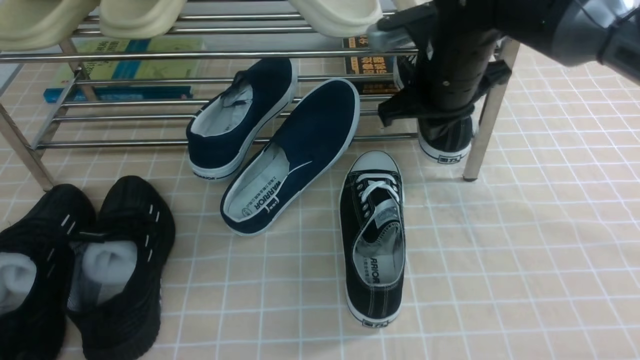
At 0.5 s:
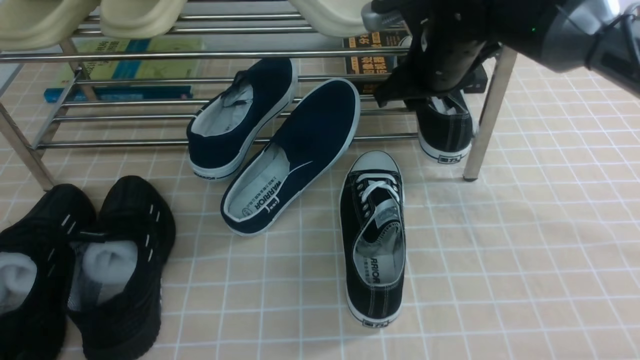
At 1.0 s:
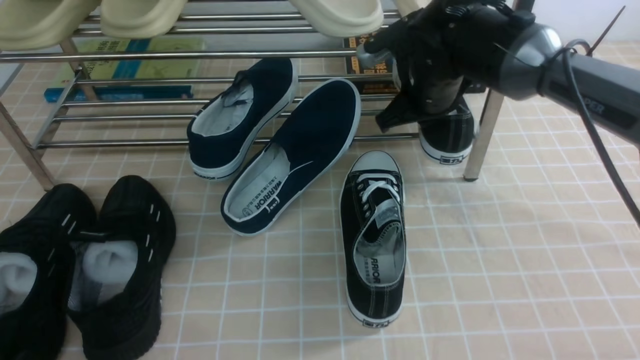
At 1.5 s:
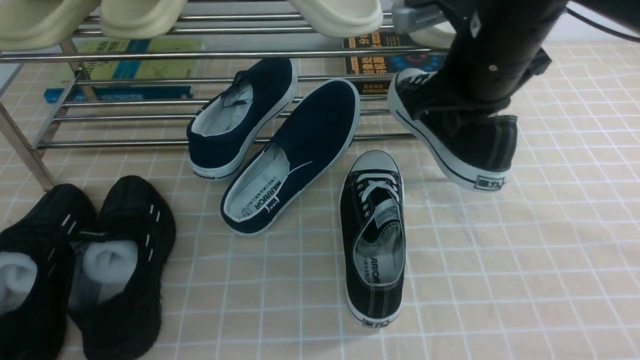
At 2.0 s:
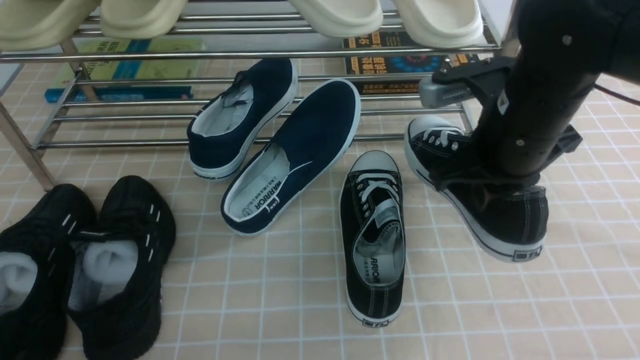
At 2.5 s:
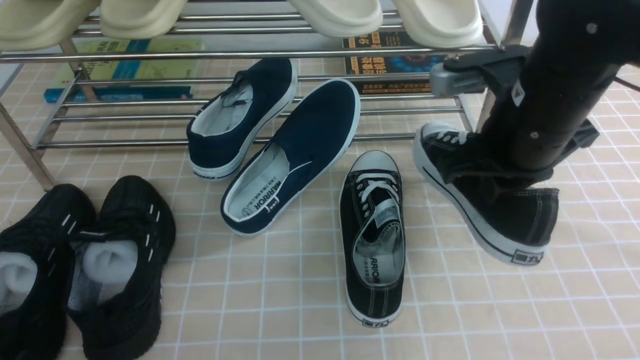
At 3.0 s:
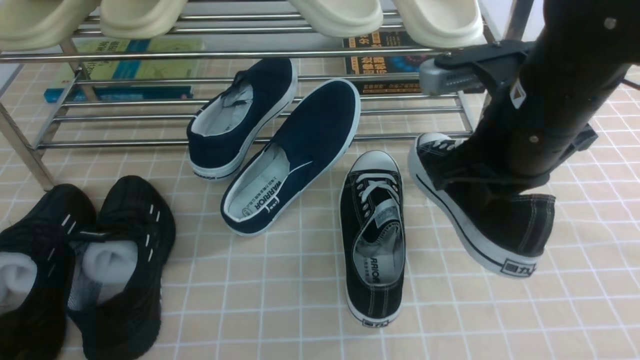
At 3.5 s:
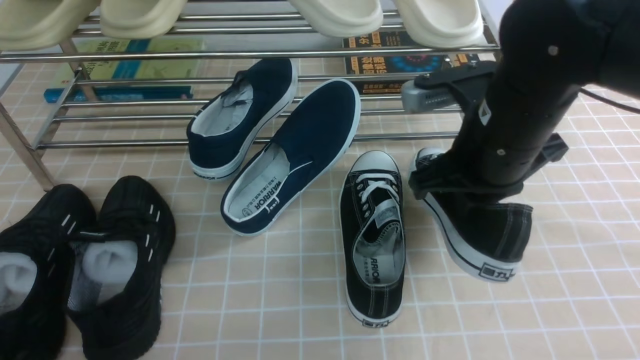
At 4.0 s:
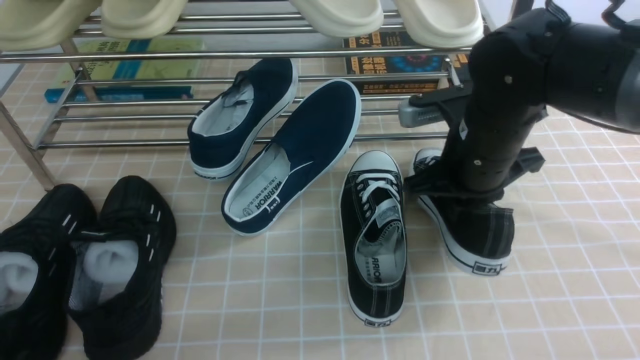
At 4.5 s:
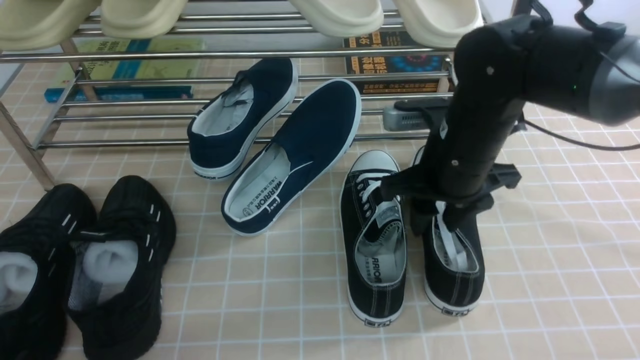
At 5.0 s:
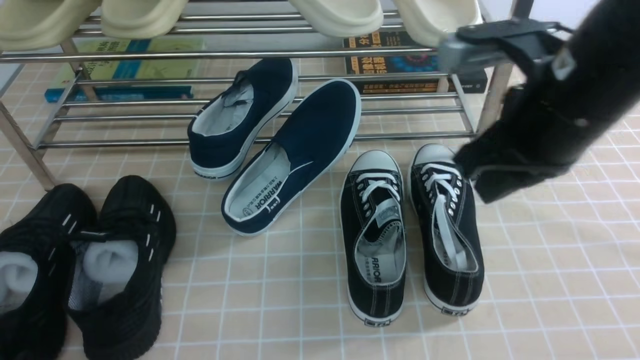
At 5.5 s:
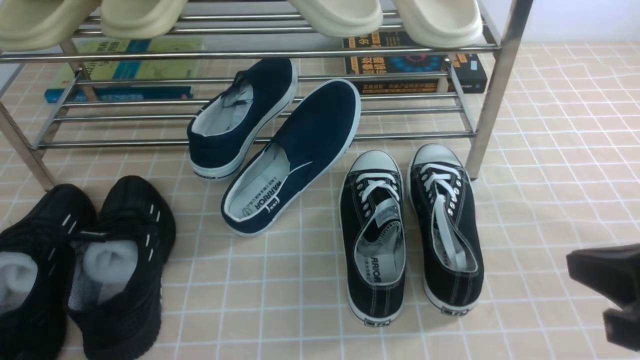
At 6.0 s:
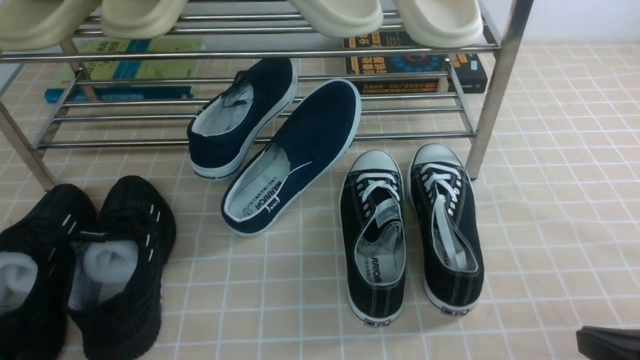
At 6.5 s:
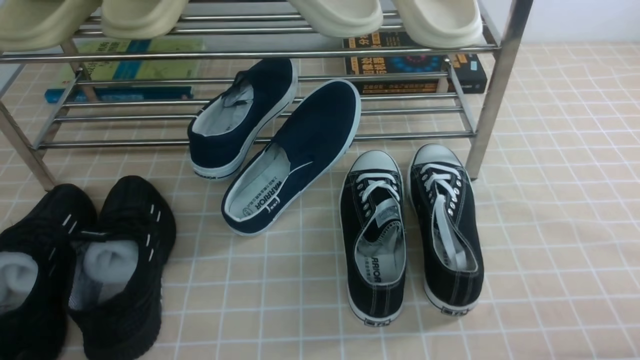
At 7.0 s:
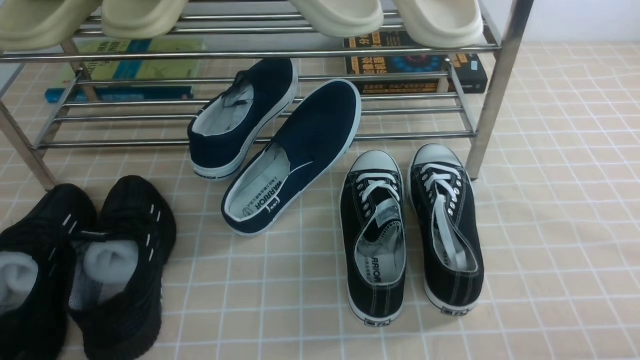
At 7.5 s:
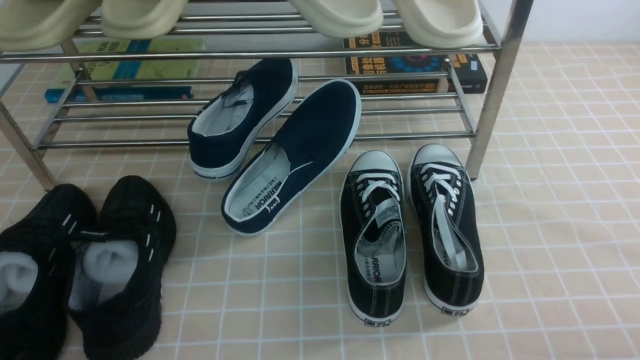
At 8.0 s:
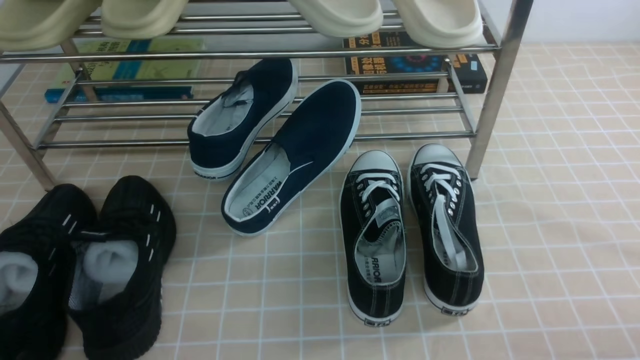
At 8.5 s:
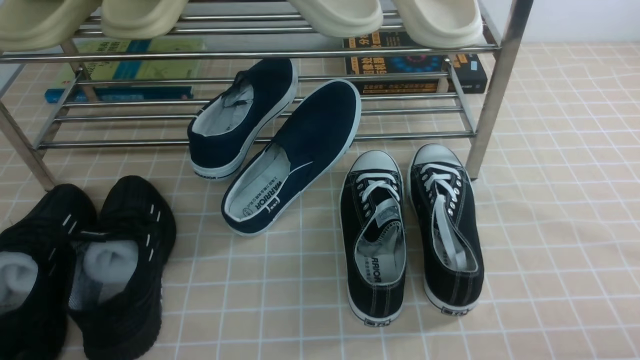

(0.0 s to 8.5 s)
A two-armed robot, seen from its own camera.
Step, 0.0 s - 1.0 s: use the right arm to clamp a shoe on the right side of the shoe rack.
Step, 1.5 s - 4.0 s: use the right arm to take out the clamped shoe from the shoe rack and put it down.
0.0 s - 2.0 s: The right gripper goes roughly 10 cm backward, and opens, then closes once more.
2.0 s - 4.0 s: The right gripper moves roughly 5 cm.
4.0 s - 6.5 s: The right gripper heads backward and to the right, covering approximately 30 cm, and opens, then closes once more.
